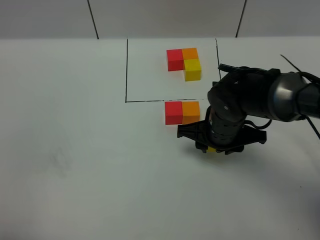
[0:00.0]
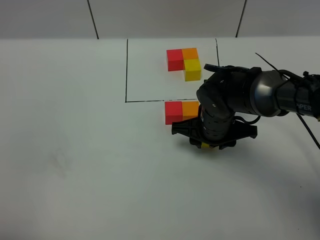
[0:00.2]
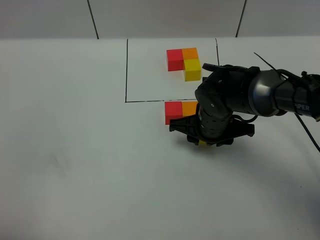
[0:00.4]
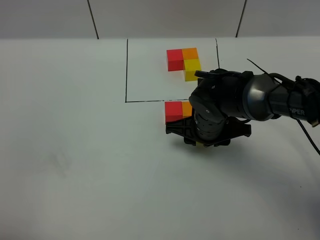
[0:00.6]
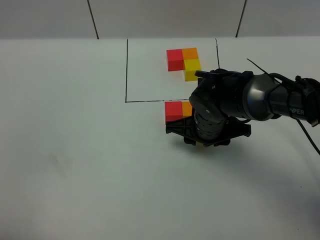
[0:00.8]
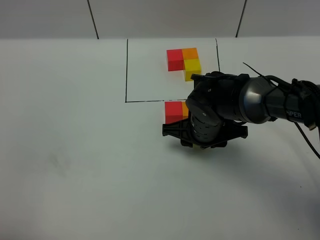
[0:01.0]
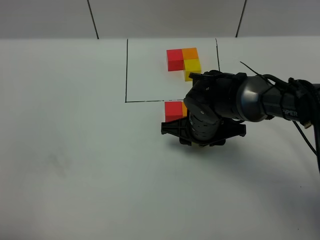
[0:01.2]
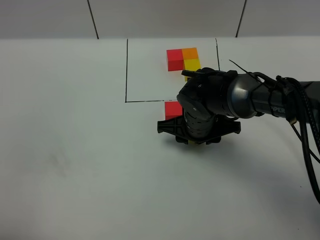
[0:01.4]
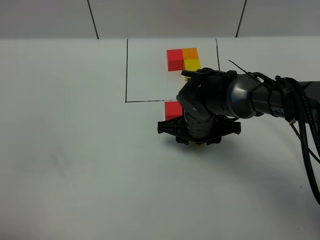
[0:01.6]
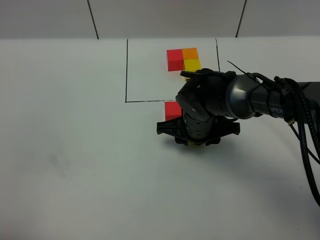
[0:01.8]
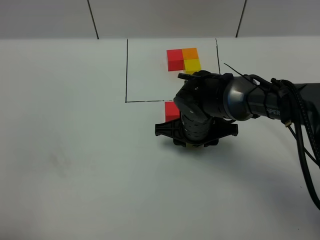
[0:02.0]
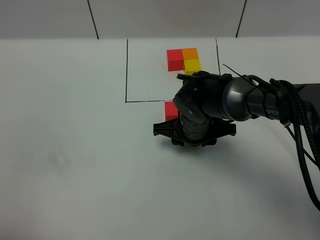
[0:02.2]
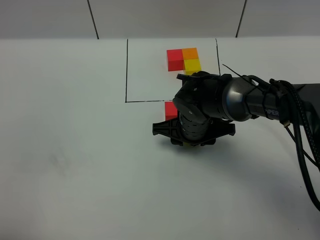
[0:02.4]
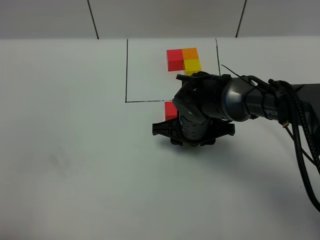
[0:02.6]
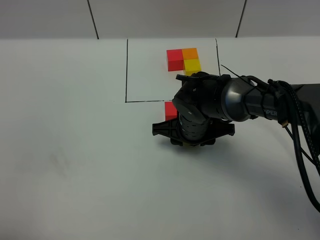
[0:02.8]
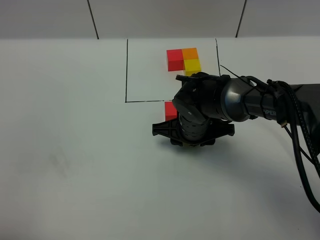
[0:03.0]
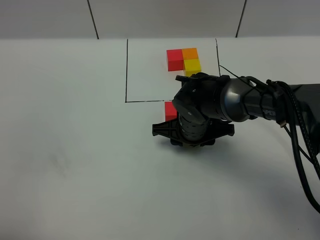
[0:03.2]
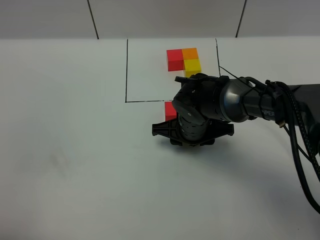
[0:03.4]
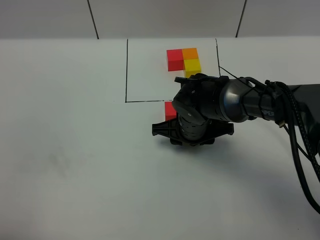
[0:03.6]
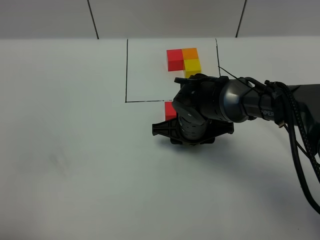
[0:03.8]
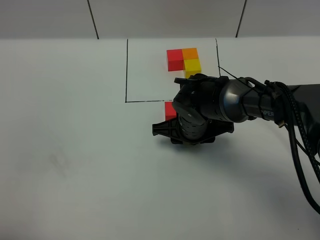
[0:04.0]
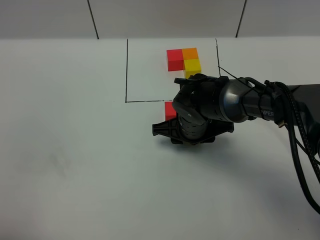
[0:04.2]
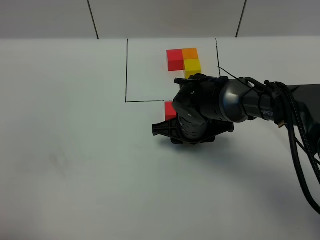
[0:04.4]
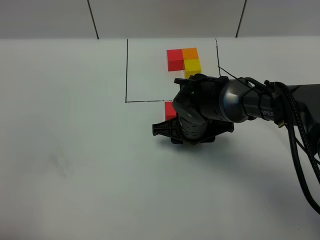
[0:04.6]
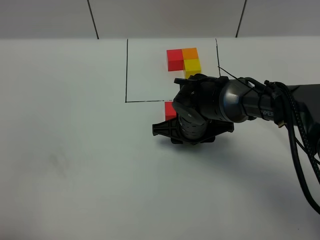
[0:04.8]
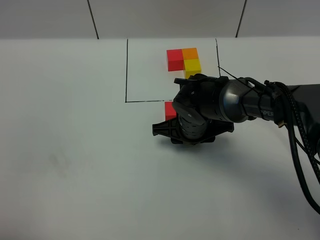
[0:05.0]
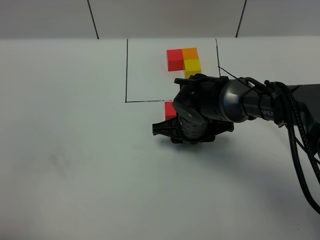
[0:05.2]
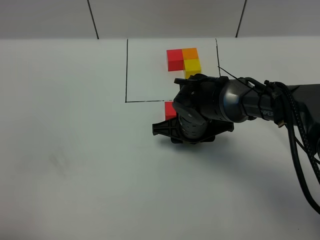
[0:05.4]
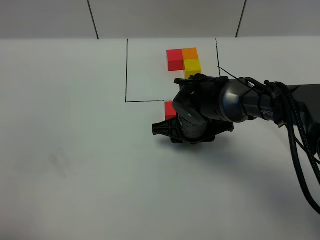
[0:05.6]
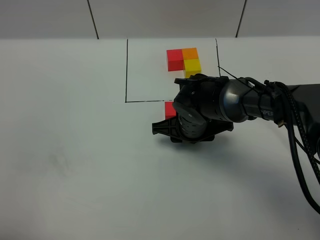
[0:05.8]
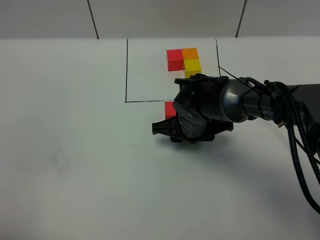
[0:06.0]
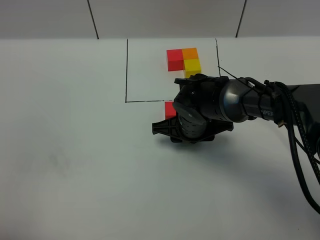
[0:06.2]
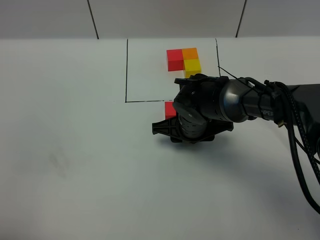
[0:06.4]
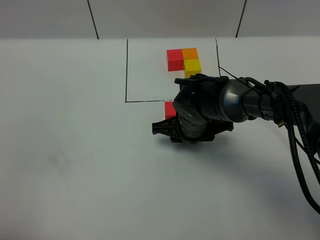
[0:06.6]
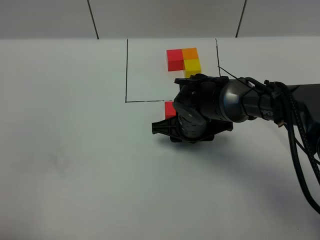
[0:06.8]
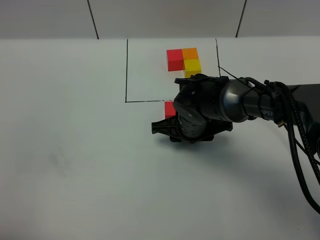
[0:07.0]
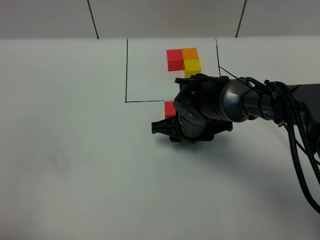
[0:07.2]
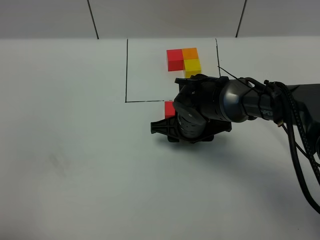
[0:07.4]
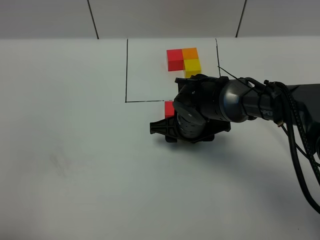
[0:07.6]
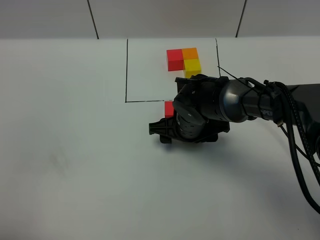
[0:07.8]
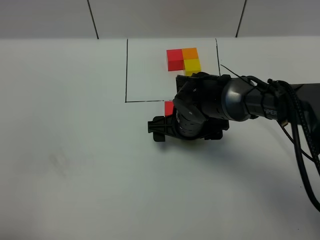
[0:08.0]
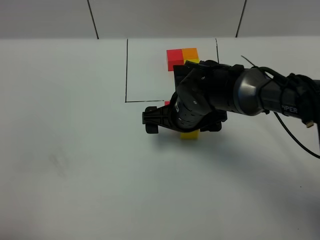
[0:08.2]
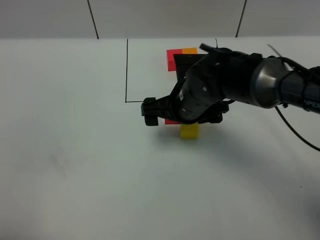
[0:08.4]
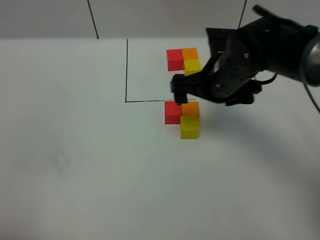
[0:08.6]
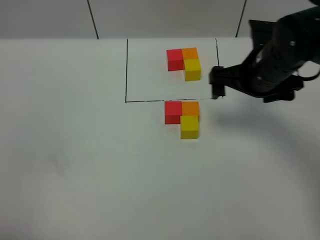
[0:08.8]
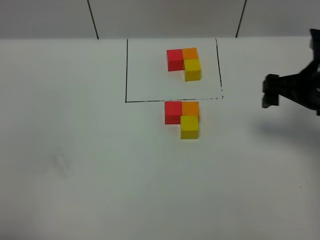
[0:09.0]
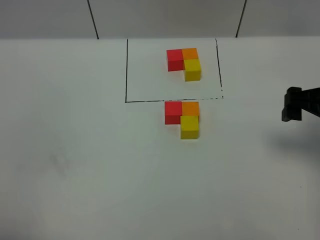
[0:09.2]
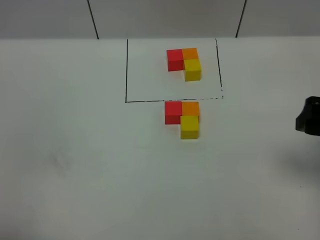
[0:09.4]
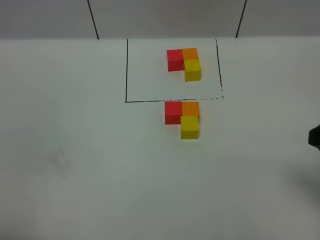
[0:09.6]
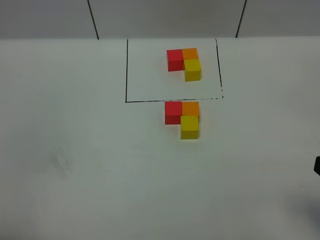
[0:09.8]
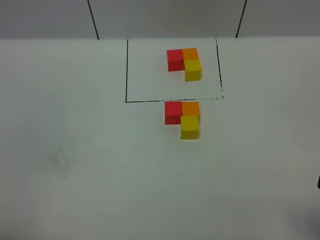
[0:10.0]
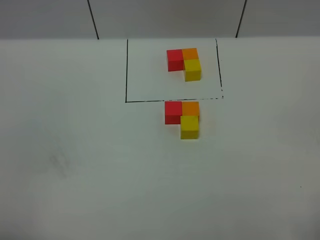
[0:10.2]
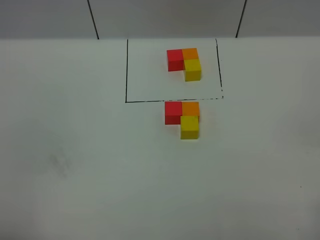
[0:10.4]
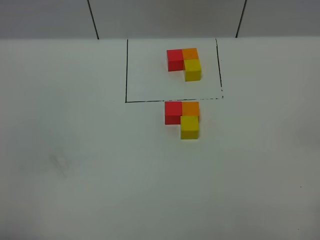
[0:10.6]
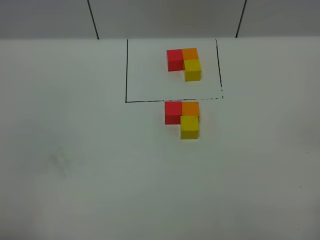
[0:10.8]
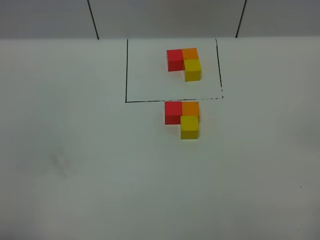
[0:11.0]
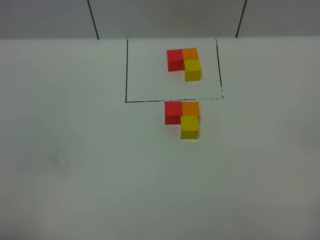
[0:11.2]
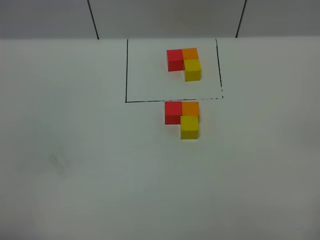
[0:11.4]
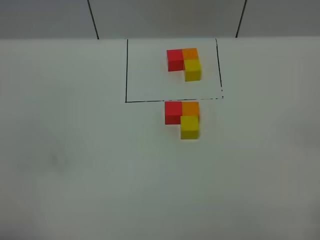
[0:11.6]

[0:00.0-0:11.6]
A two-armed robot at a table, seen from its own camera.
Task of the whole recording: According to the building block template in front, assemble the scattered blocks together.
Step, 0:00.0 to 0:07.6: Put the yellow build block on the behind of the orange build block.
0:00.0 to 0:01.4: The grippers stay close to where they were, moving slightly.
0:01.4 to 0:02.8: Both grippers stay about where they are.
0:02.8 to 0:07.2: The two grippers keep their place.
0:07.2 to 0:08.8: The right gripper shifts roughly 20 cm to the right and upward, and opens its fingers.
0:08.8 to 0:10.2: The right gripper moves backward, some 30 cm.

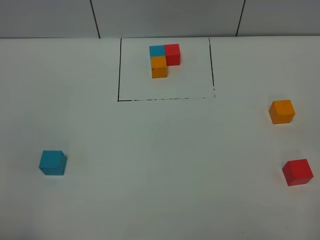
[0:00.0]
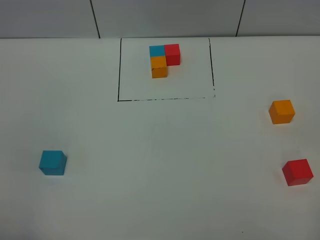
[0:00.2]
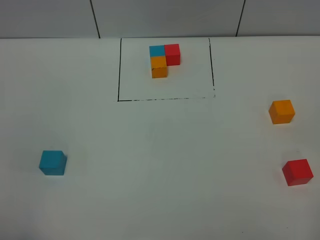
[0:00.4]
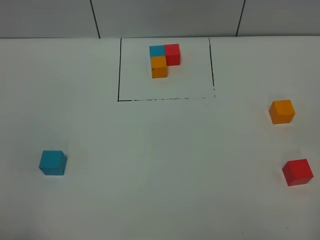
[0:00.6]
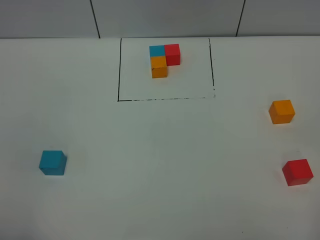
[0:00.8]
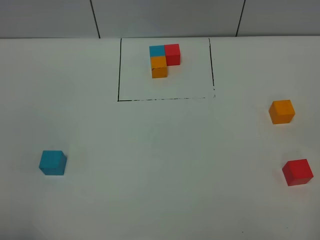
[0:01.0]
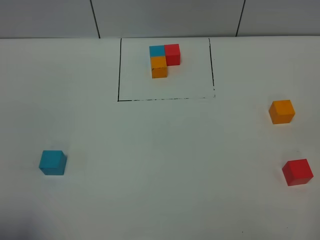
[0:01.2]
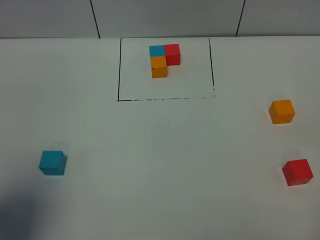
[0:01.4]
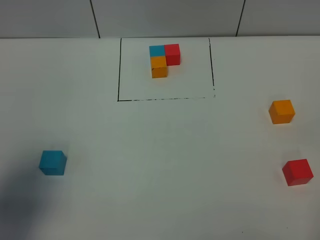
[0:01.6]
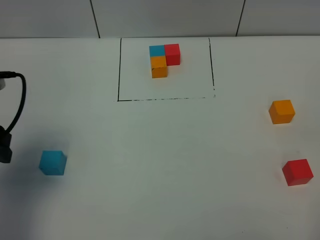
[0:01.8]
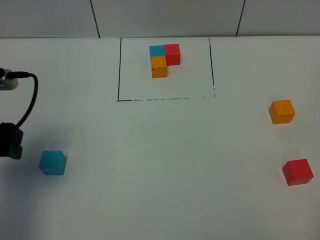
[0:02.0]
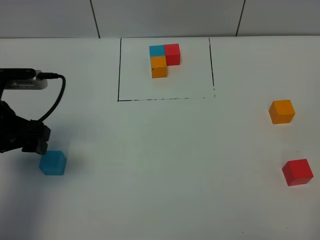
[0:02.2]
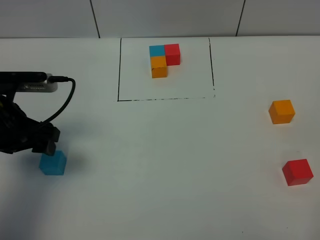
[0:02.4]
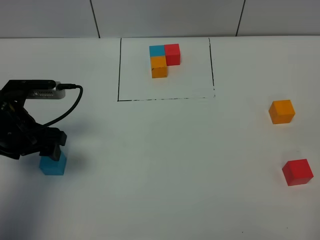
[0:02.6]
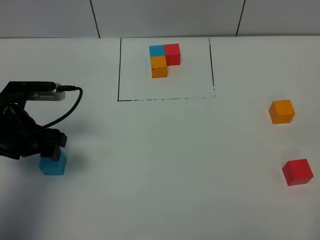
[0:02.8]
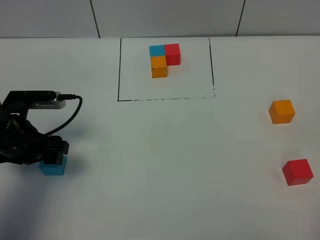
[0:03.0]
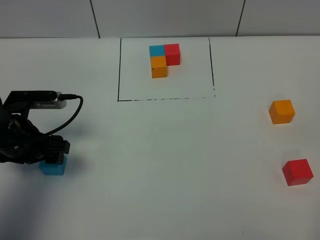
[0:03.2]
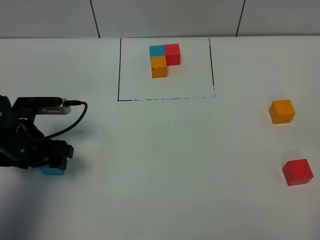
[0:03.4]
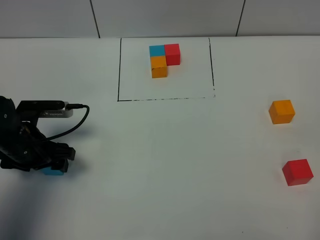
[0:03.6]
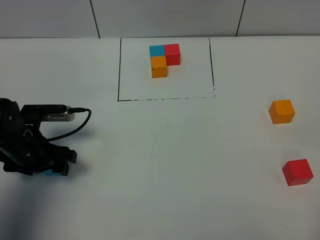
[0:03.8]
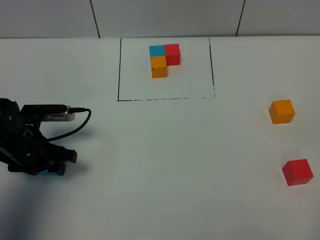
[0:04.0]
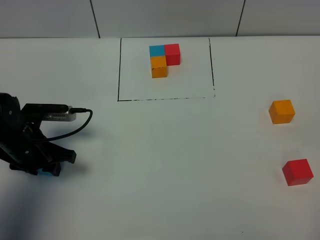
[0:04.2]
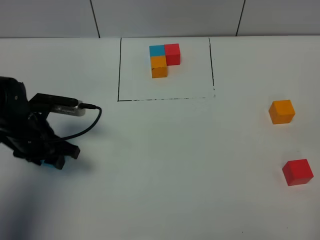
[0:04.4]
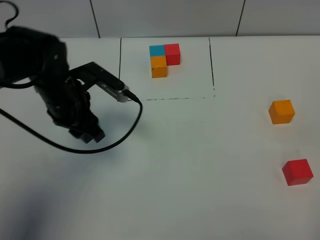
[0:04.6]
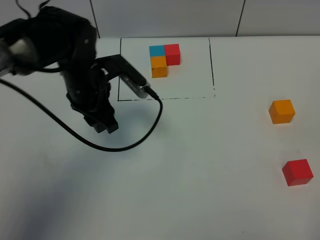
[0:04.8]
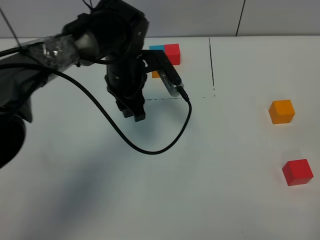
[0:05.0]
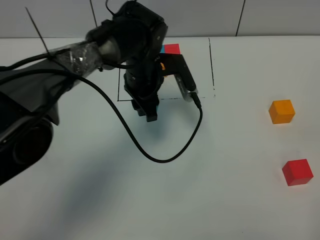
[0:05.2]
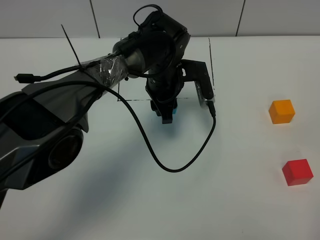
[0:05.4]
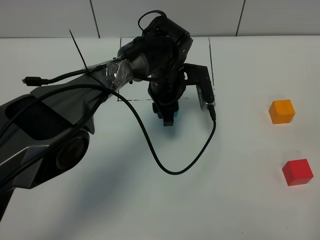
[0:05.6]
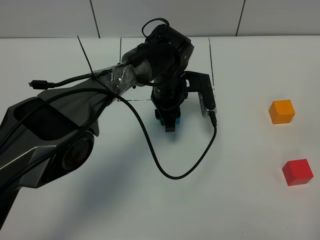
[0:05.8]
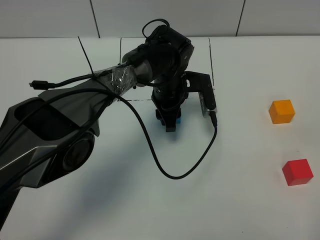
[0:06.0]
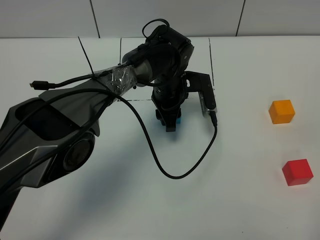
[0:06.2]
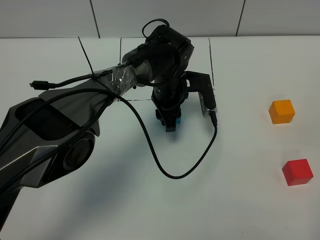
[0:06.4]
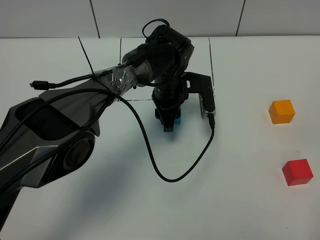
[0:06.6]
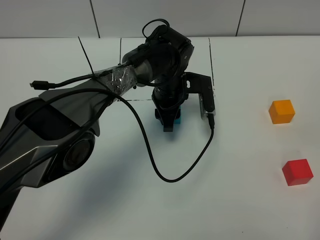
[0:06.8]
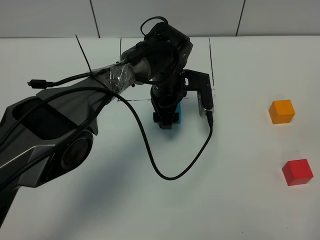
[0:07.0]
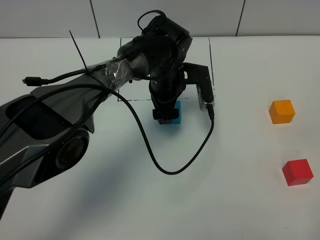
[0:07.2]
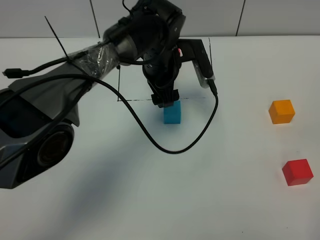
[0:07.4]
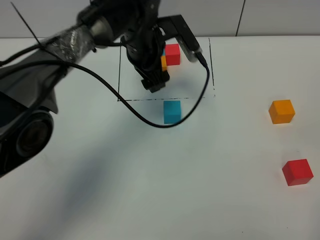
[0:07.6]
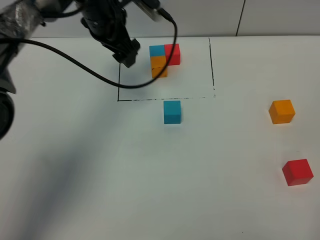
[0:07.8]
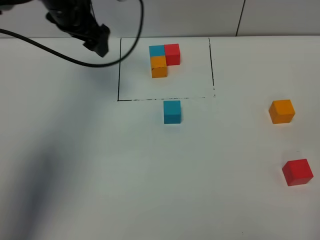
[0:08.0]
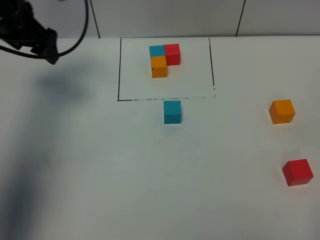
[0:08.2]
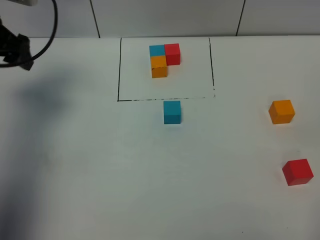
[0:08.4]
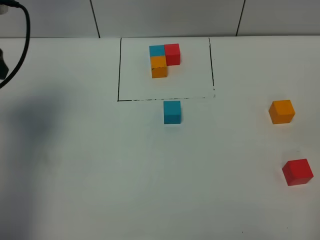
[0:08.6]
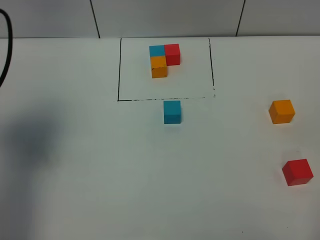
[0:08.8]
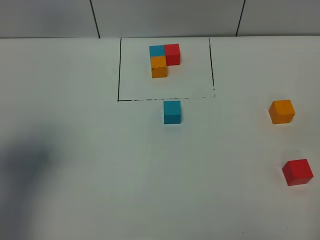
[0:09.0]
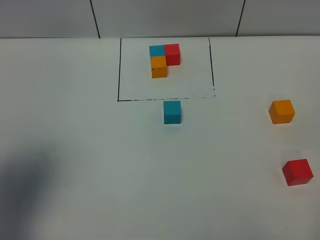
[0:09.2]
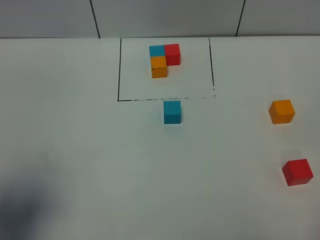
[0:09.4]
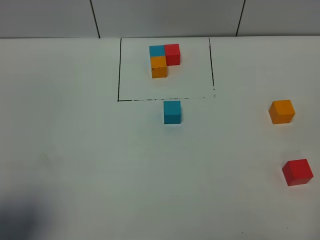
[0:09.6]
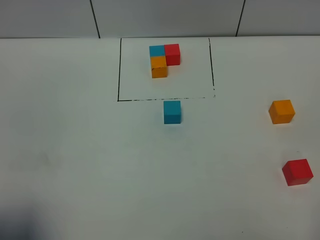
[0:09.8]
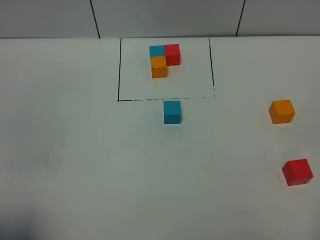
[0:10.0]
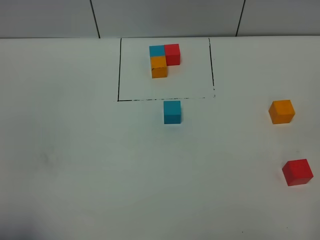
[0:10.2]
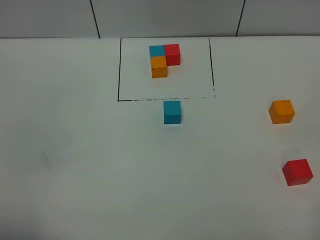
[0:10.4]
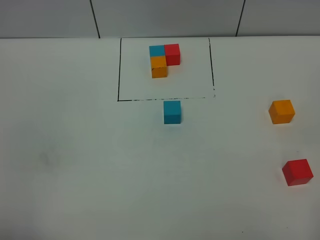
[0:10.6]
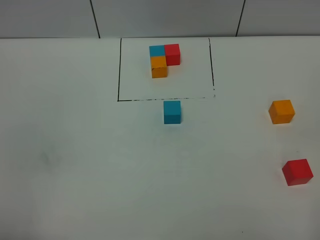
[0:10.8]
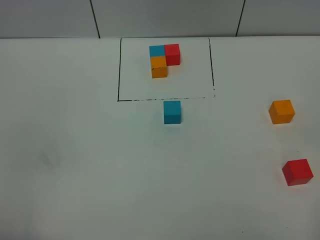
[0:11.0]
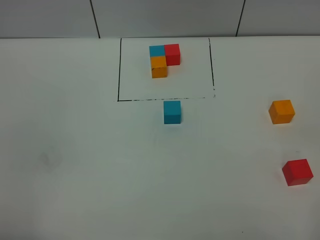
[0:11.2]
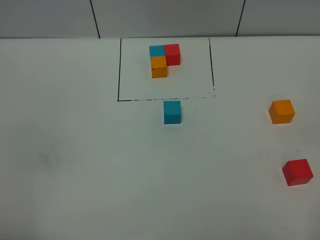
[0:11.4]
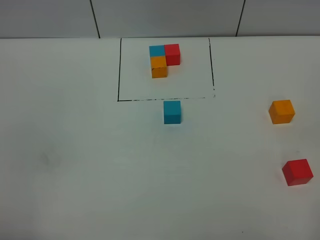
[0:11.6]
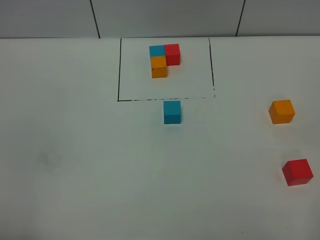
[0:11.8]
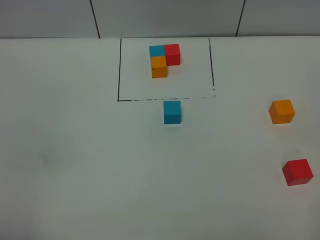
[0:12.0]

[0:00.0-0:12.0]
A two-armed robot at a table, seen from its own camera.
Task of the whole recording: According to the building block template in front, assemble the scattered blocks together.
Step, 0:00.0 to 0:06.8: Put the blue build block in the center of the table.
0:00.0 to 0:01.6: The left gripper shifts approximately 15 cm forward.
0:01.6 to 0:03.0: The left gripper shifts some 15 cm downward and forward.
0:03.0 to 0:04.4: The left gripper closes.
0:04.4 to 0:06.0: The left gripper goes roughly 25 cm to the right and forward.
0:06.0 to 0:07.6: The left gripper shifts about 10 cm upward and to the left, and opens up.
0:07.6 to 0:09.0: The left gripper moves to the left, backward and upward, some 40 cm.
0:09.0 to 0:10.4: The left gripper moves backward, approximately 20 cm.
